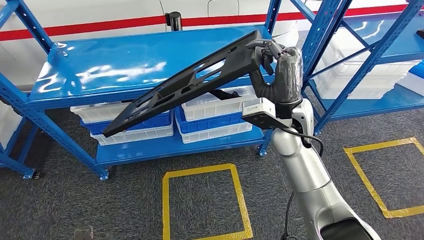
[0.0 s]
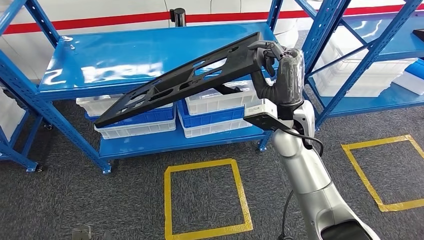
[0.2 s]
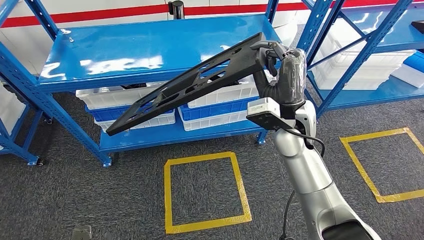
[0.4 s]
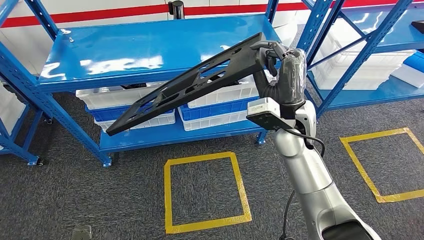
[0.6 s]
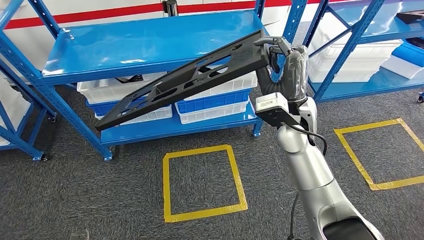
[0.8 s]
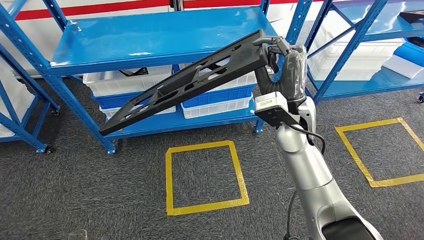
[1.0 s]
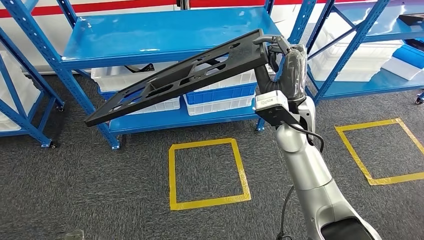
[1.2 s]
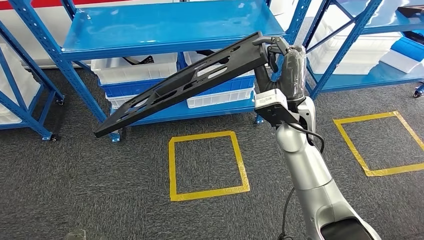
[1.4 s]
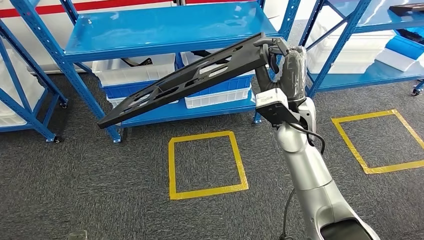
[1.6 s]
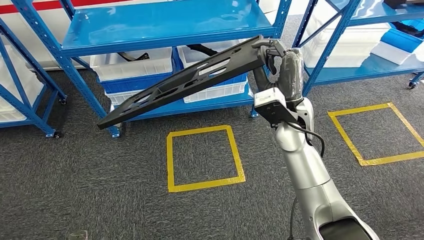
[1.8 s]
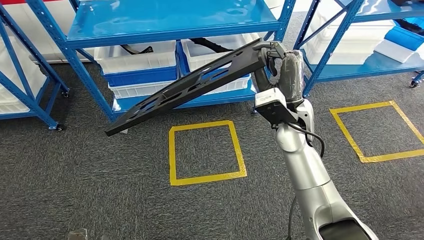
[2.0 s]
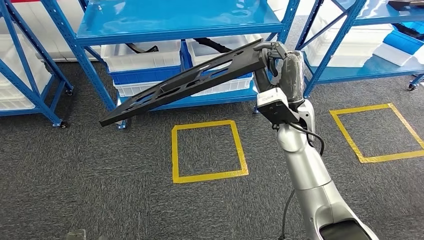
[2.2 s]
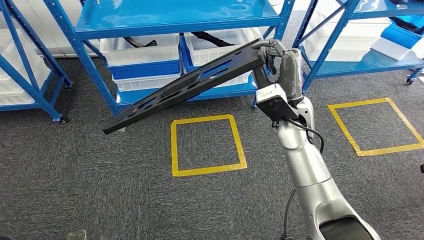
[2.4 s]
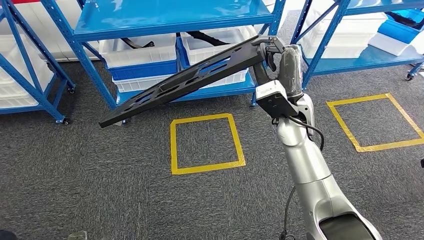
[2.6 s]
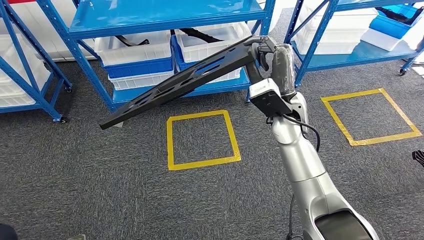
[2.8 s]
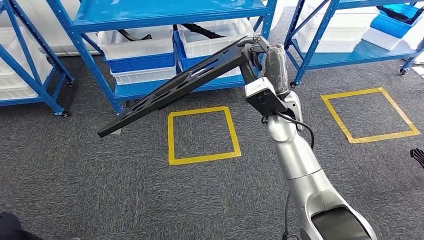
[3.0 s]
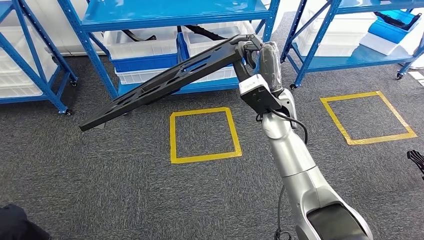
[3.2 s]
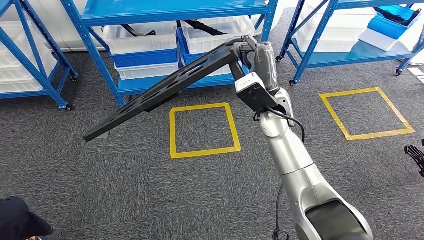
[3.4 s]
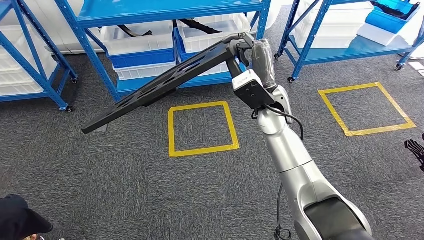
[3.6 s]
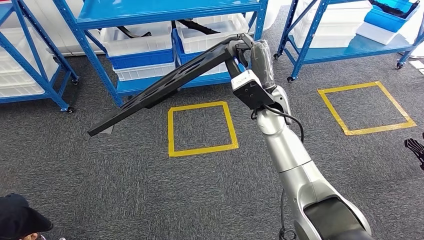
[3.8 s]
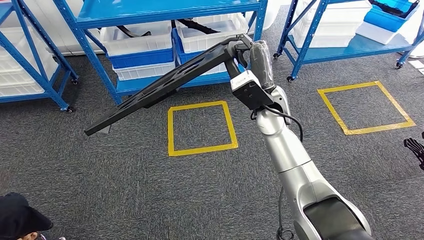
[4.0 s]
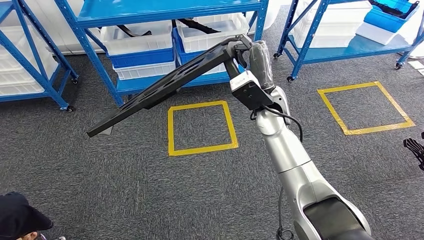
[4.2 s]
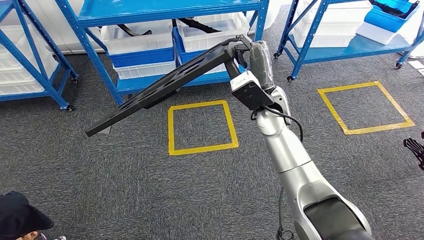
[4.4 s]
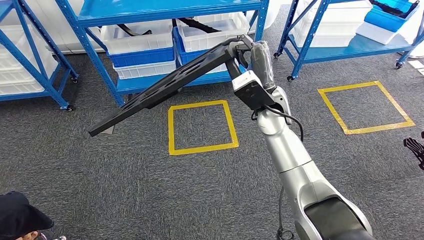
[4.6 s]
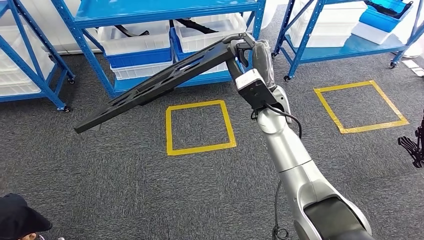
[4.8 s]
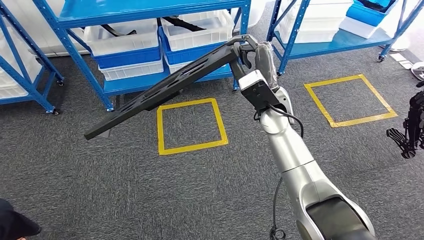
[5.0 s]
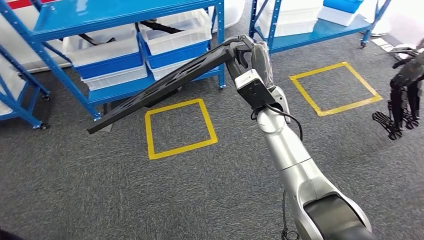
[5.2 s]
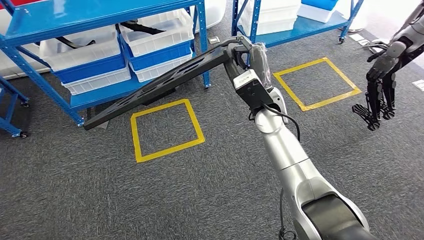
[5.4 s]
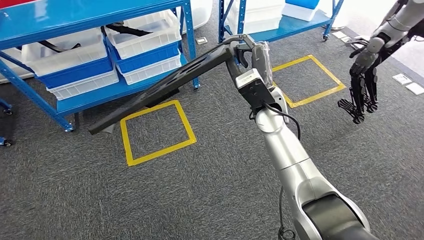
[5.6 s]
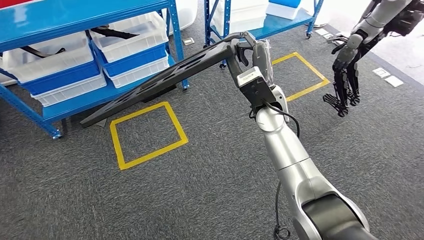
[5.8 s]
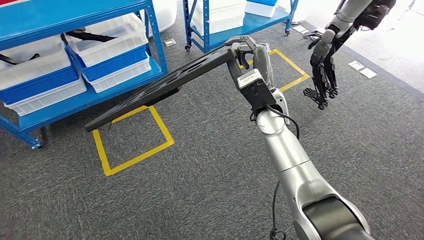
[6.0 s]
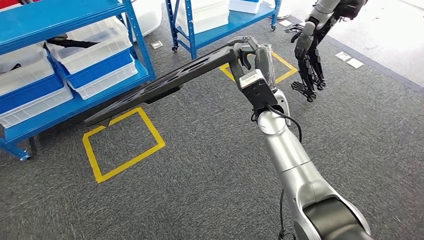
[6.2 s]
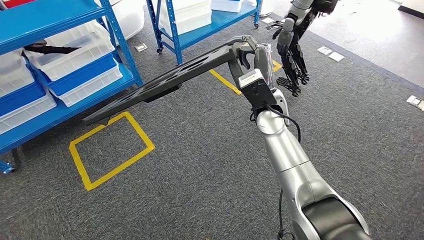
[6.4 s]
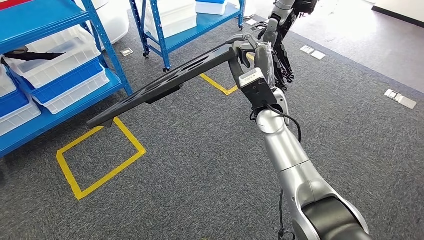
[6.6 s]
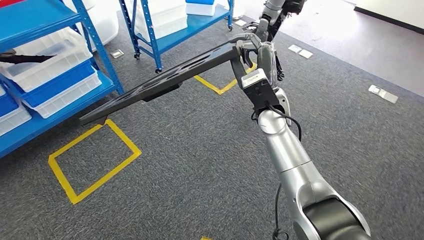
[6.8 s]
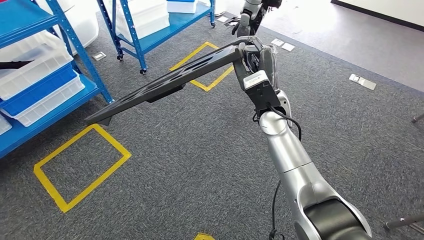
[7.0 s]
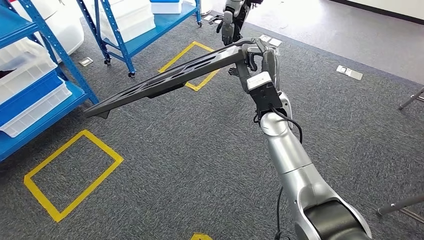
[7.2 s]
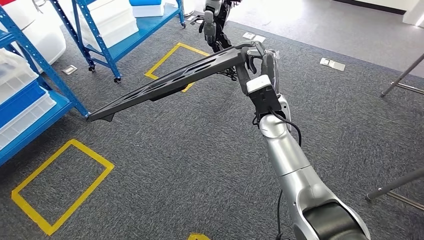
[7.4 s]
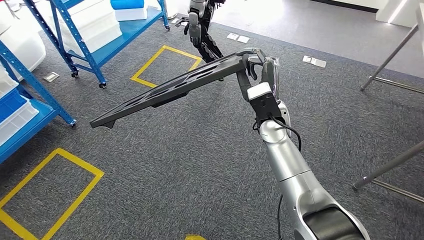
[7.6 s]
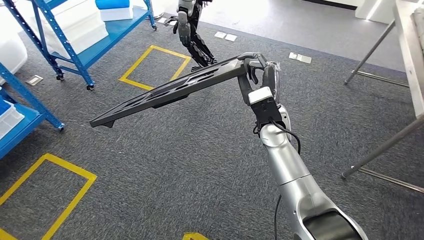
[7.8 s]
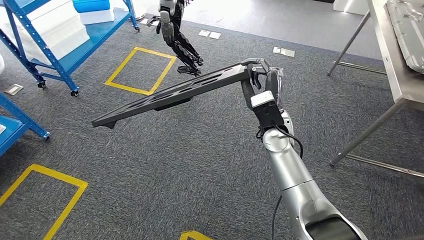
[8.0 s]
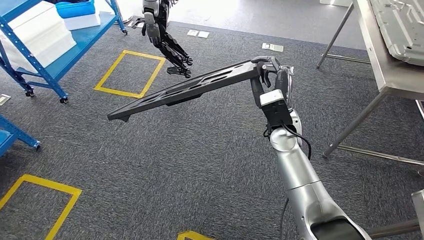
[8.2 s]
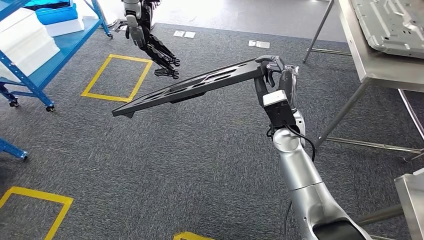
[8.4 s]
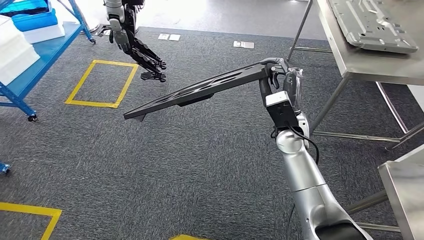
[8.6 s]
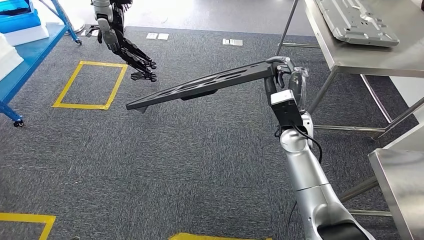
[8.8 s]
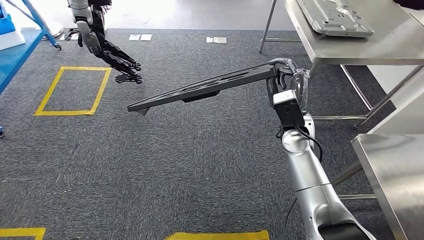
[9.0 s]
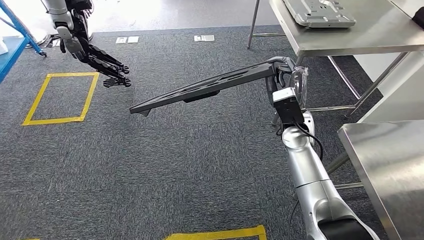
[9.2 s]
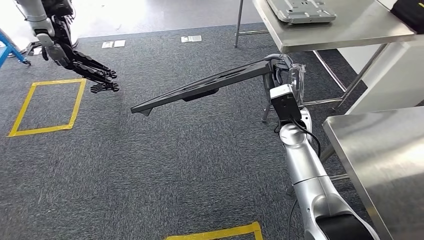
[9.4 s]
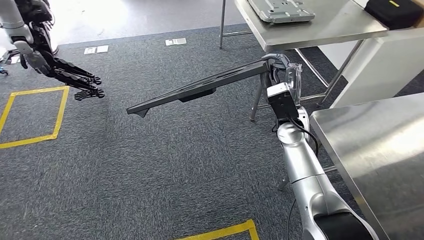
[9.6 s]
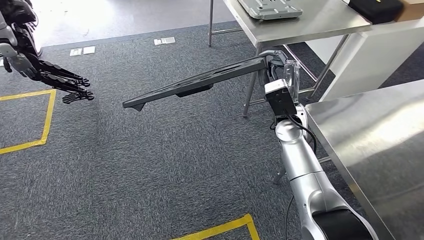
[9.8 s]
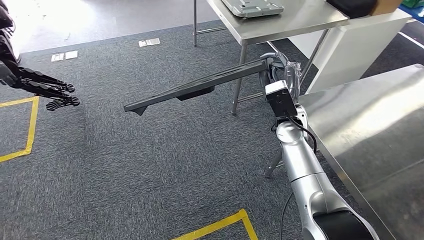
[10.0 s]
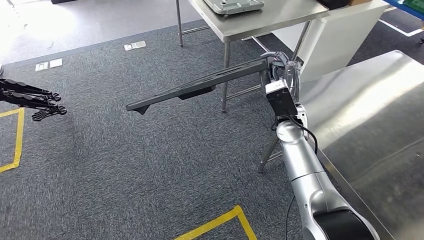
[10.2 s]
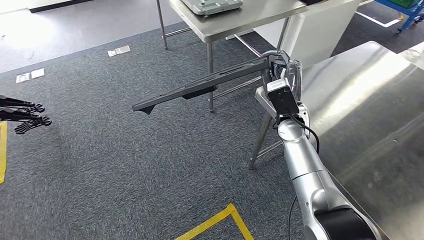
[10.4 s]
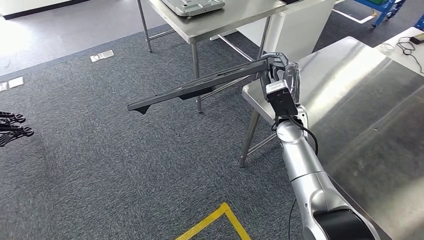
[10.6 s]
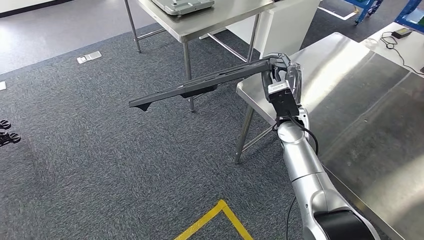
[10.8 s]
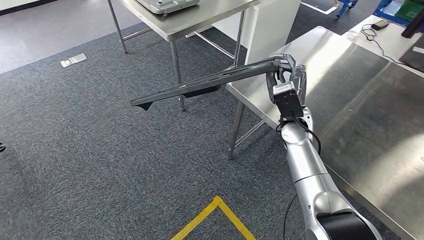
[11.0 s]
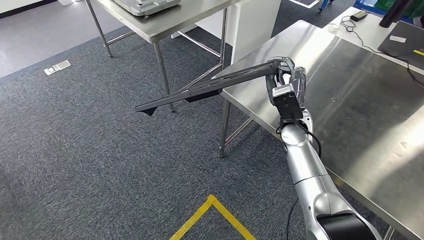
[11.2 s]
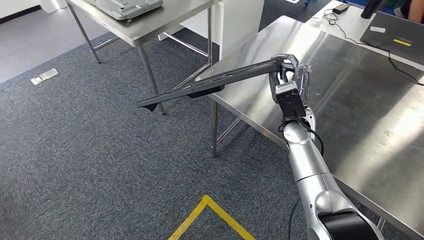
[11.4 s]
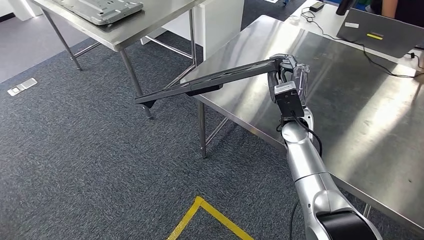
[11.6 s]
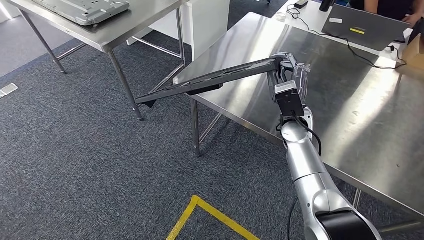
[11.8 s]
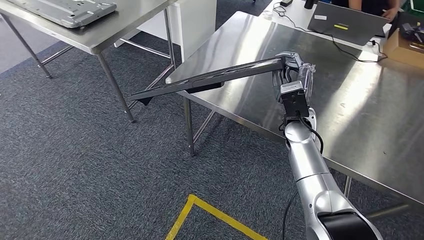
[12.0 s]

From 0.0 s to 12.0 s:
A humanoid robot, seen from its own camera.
Step, from 0.0 s to 11.2 s: Move the large material to the front of the workbench.

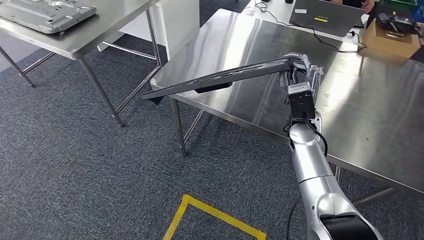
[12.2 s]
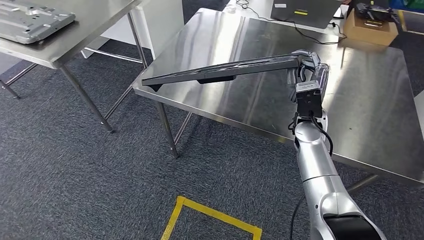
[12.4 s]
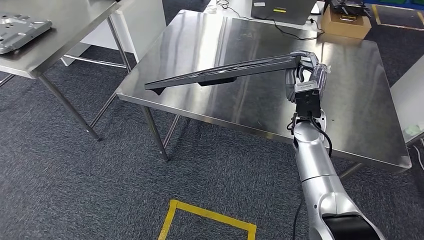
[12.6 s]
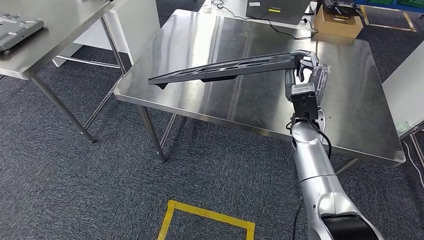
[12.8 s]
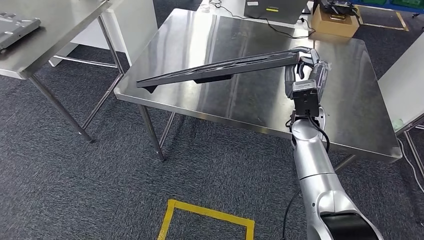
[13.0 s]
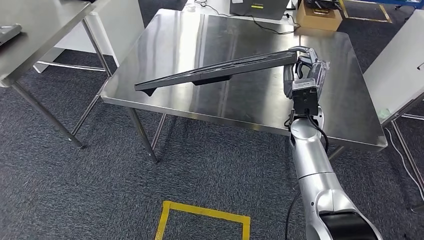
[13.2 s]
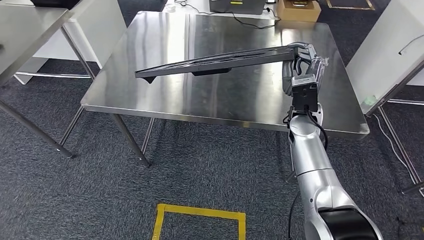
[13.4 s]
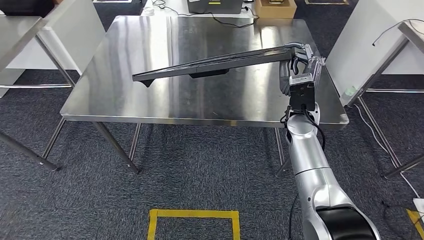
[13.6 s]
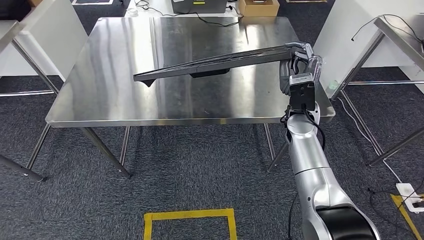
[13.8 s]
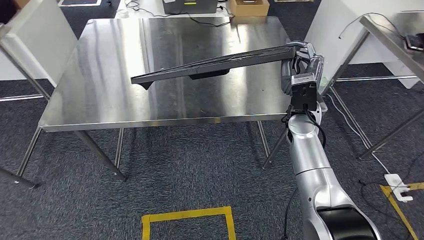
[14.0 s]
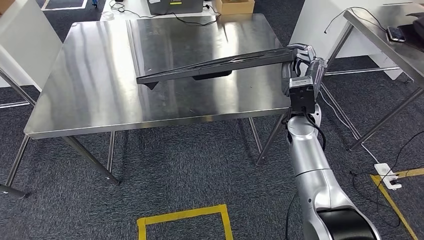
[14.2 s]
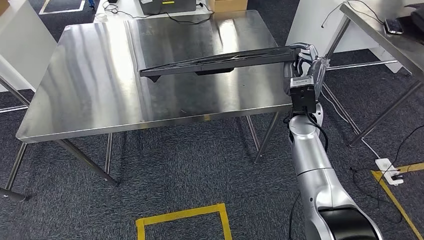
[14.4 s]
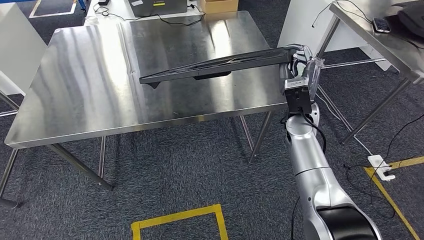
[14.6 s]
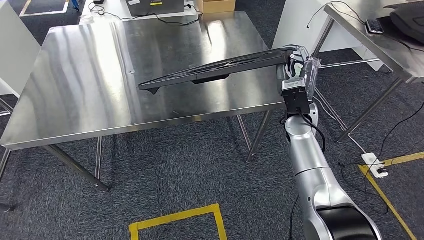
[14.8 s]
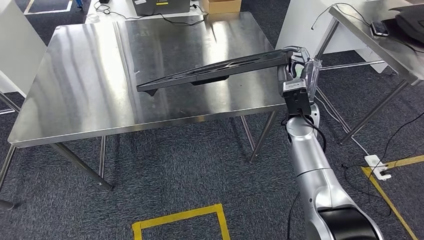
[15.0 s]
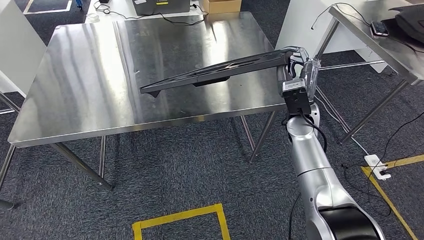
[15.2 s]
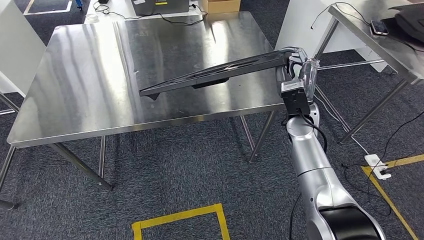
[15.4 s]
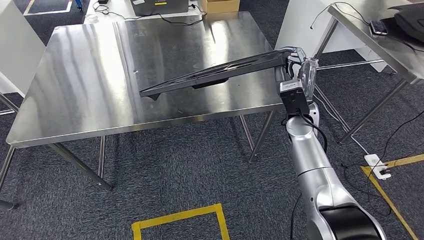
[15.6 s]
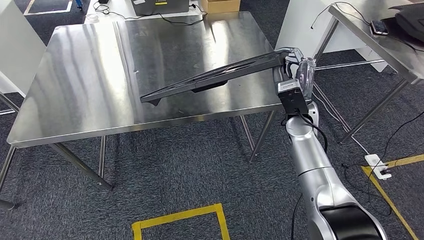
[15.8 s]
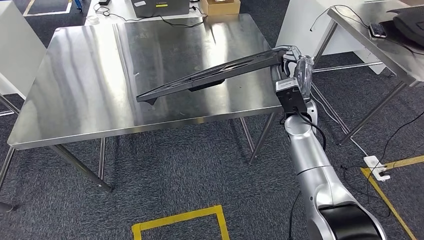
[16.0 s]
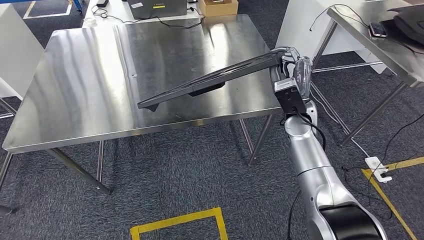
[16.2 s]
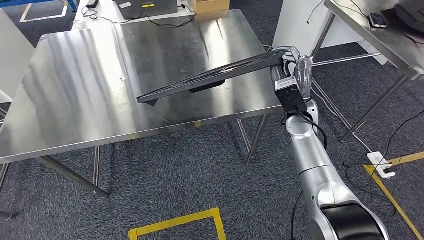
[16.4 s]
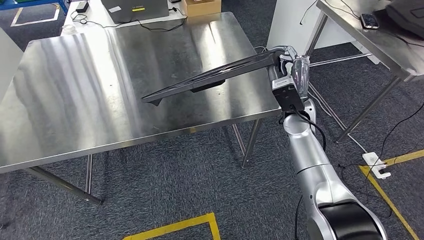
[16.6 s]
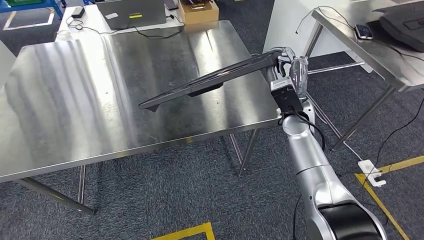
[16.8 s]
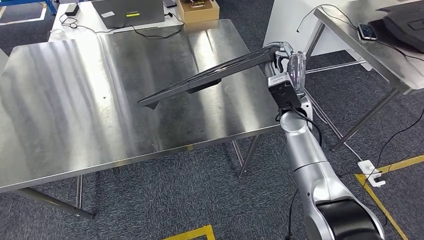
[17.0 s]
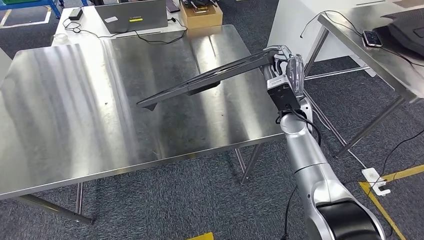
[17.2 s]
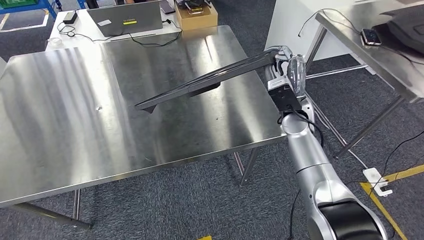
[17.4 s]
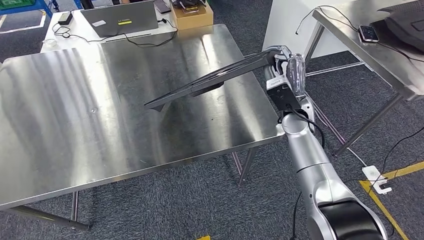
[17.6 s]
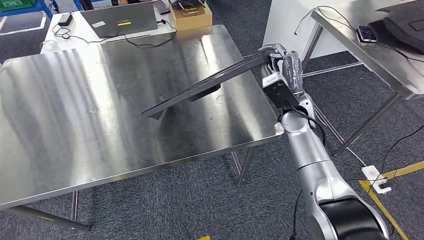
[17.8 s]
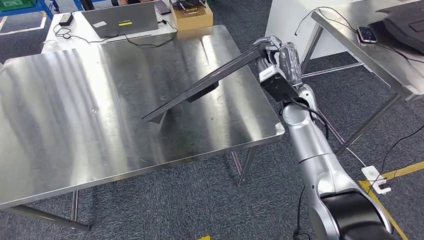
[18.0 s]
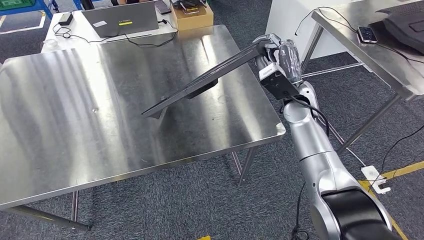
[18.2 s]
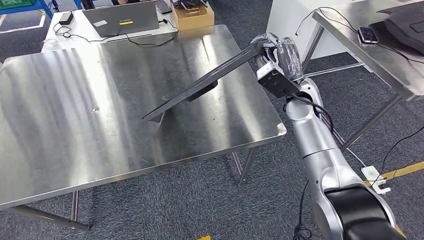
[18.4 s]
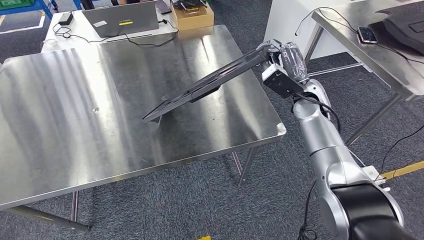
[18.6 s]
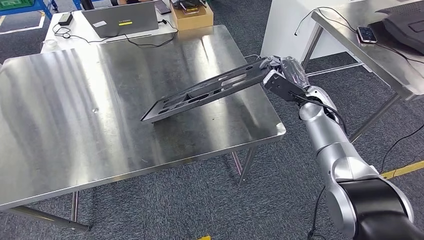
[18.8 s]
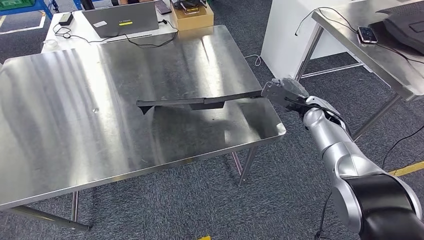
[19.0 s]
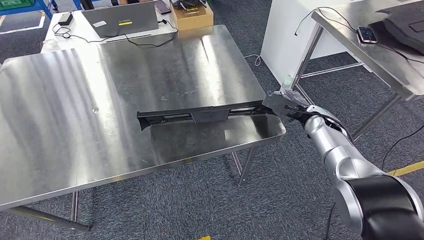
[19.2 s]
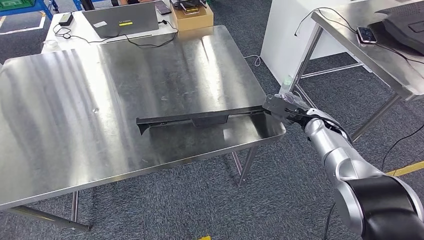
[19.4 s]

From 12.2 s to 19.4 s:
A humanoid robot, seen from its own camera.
From 18.0 s to 19.4 s: The right hand moves to the right and downward, approximately 15 cm.
